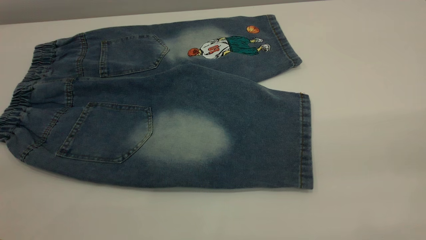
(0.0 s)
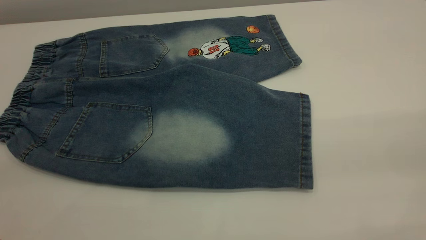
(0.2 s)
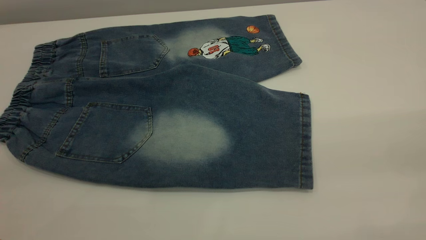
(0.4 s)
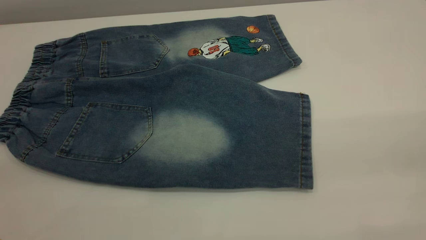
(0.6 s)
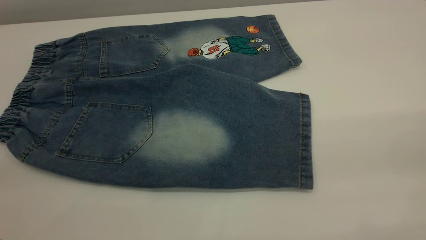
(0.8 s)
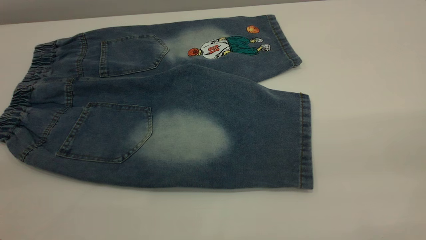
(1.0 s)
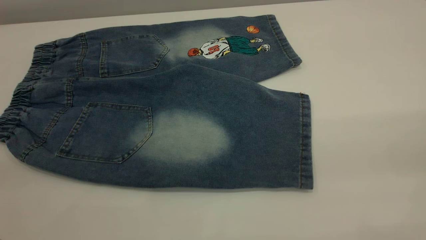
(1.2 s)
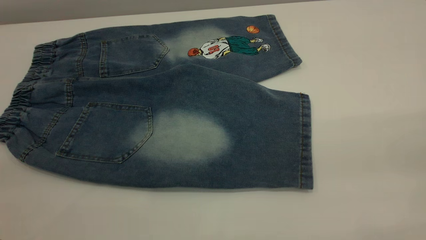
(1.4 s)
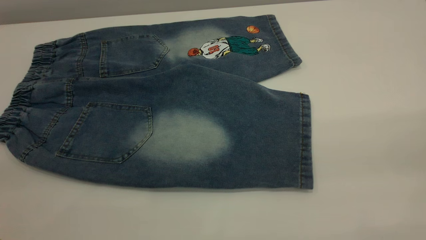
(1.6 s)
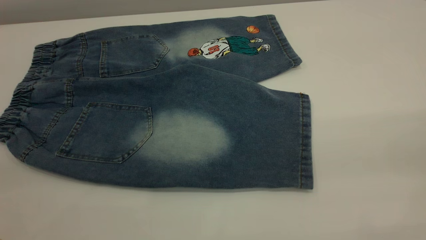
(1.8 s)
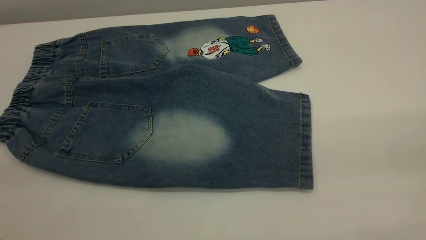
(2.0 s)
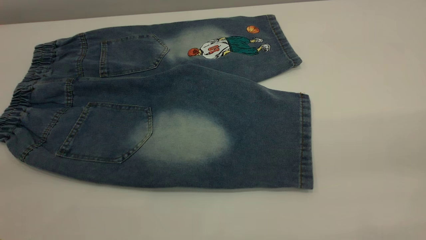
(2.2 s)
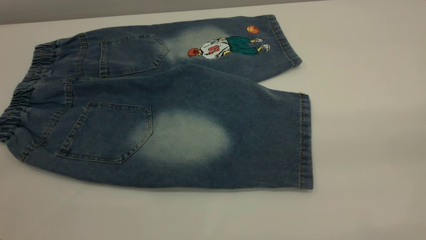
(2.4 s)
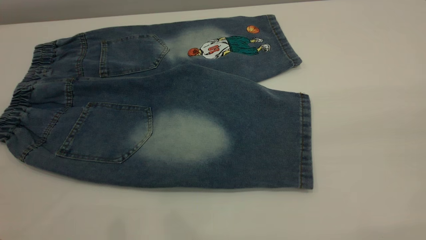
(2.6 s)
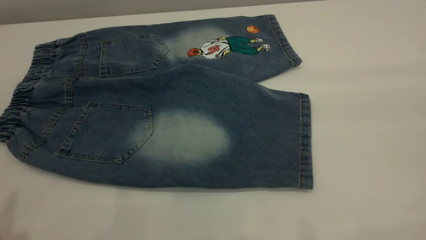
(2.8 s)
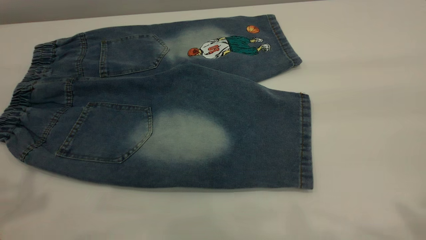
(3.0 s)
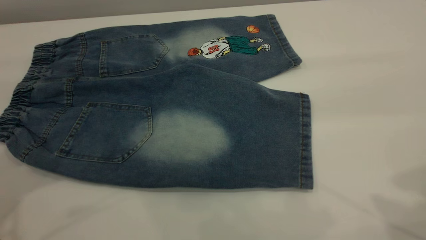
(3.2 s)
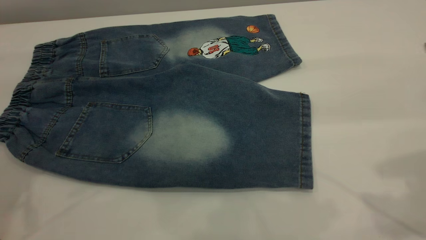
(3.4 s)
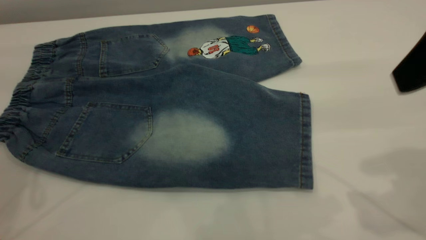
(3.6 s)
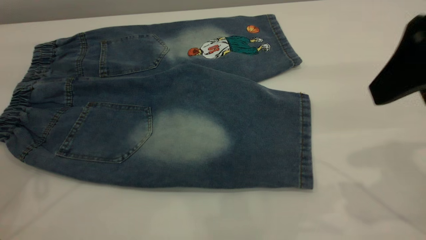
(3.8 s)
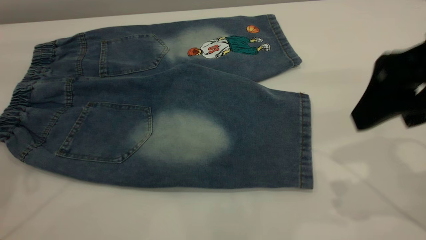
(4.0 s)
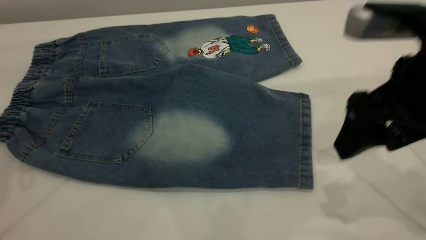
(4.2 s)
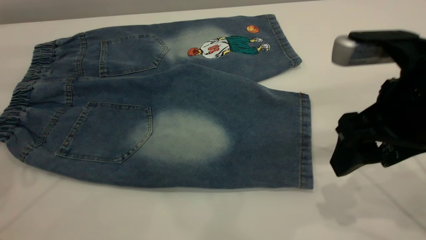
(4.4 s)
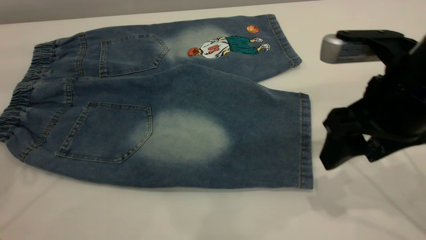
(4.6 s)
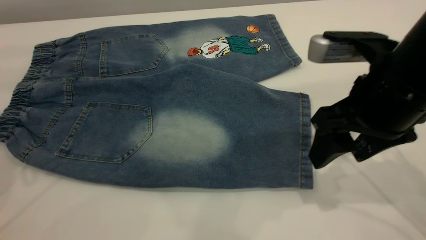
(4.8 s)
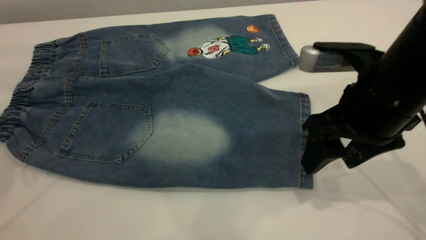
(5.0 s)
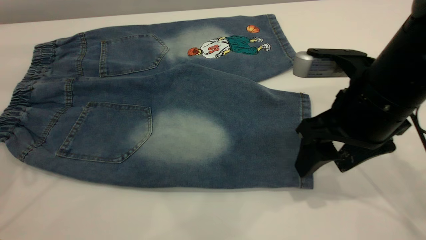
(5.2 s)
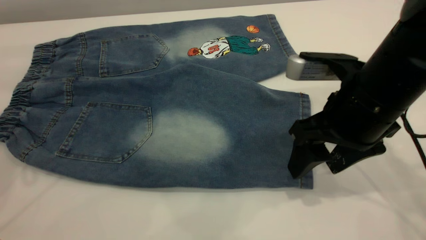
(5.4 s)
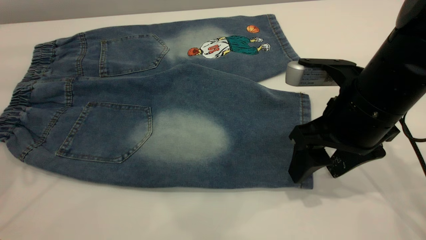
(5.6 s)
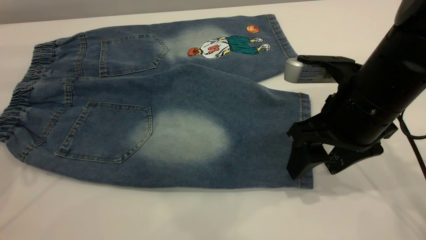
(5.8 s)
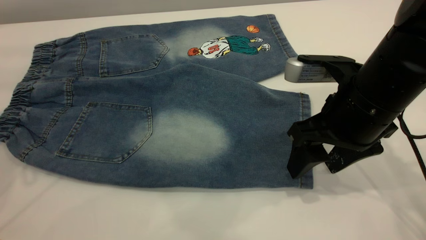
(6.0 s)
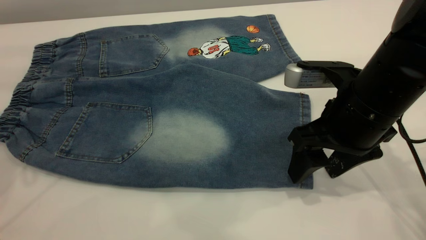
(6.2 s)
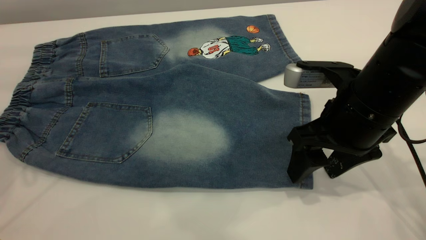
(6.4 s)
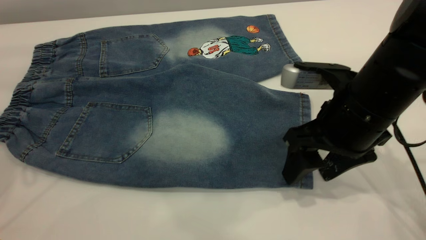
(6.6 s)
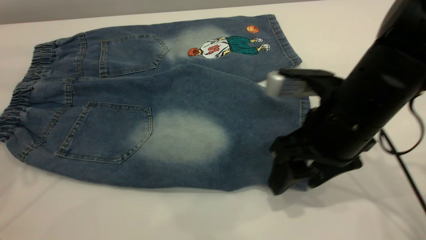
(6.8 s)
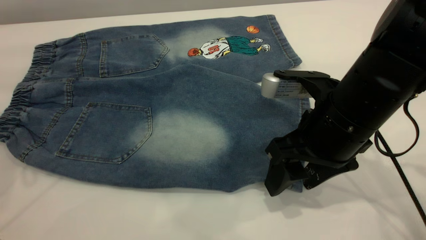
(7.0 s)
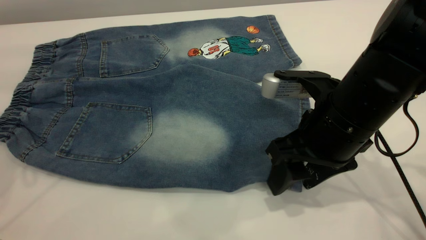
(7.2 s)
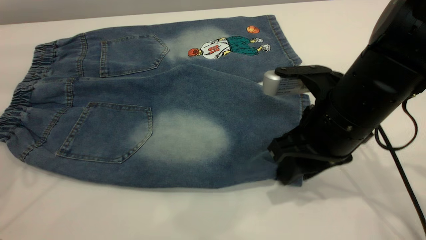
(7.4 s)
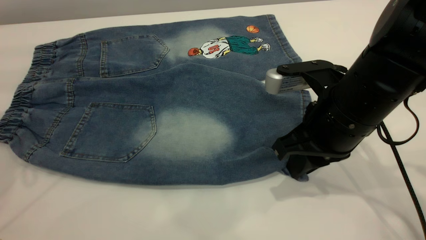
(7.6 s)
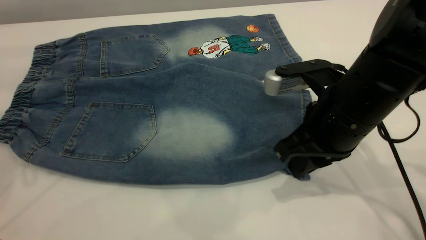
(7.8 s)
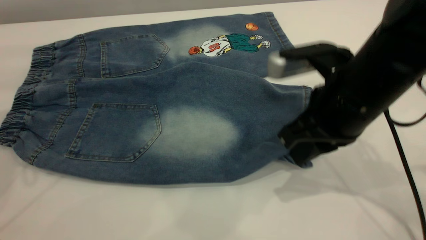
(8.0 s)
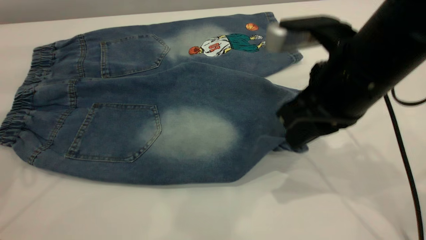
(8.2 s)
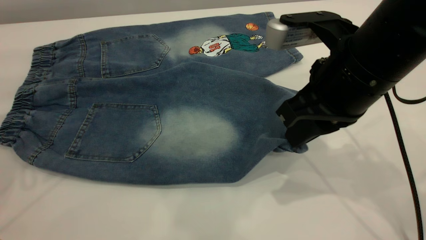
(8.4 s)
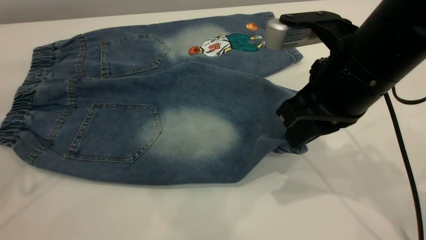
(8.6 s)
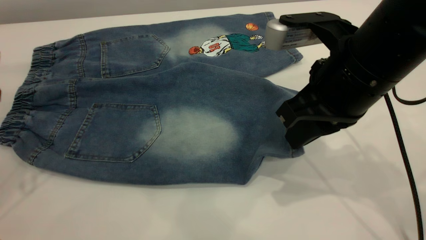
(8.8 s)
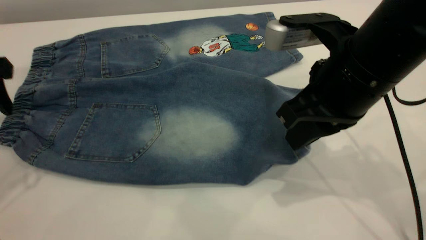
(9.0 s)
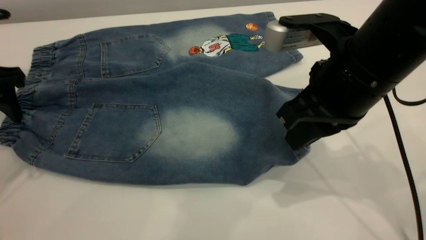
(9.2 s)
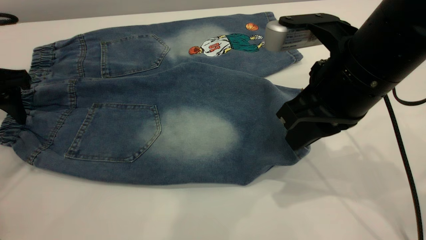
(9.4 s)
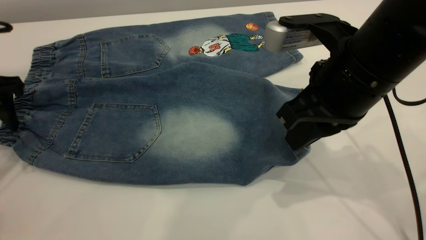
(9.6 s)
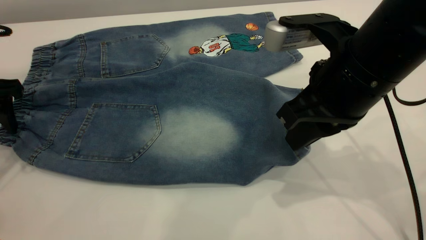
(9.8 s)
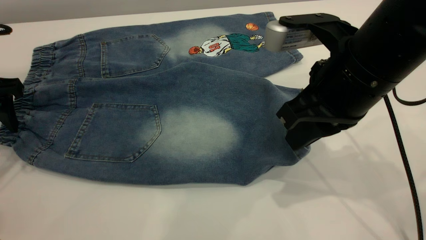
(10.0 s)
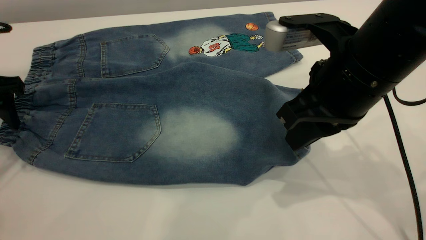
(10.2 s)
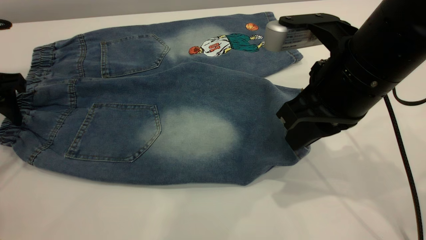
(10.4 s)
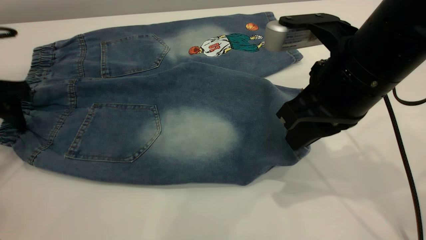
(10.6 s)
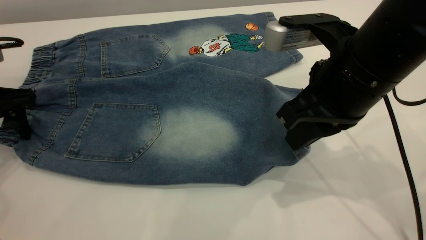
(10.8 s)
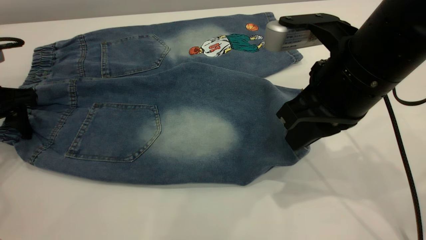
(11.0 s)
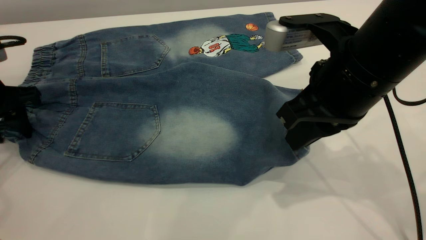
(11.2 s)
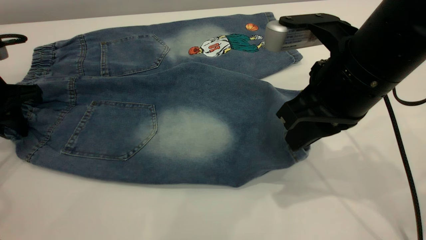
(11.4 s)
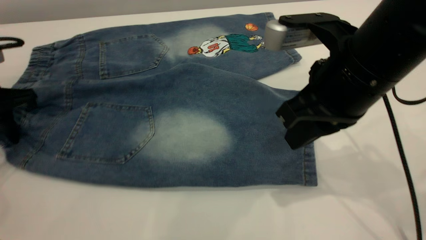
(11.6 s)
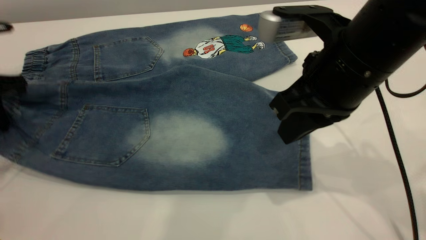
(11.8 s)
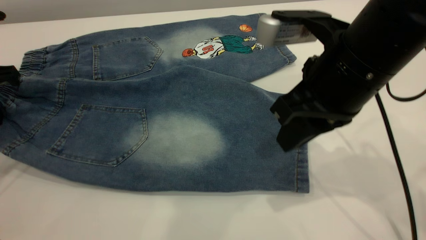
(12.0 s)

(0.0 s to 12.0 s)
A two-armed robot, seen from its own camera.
0.0 s - 1.6 s: The two grippers keep their place.
3.0 s - 4.4 s: The left gripper is displaced forward and downward by approximately 15 cm. The right gripper shifts some 20 cm downward, forward and to the left.
4.4 s - 6.0 s: The right gripper changes place by approximately 5 cm.
6.0 s - 7.6 s: The right gripper closes its fingers.
7.6 s - 9.0 s: The right gripper is displaced upward by approximately 5 cm, while the left gripper is displaced downward by roughly 10 cm.
9.0 s - 10.4 s: The grippers stay close to where they were, moving slightly.
10.4 s - 12.0 s: The left gripper closes.

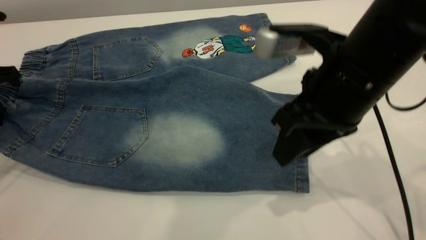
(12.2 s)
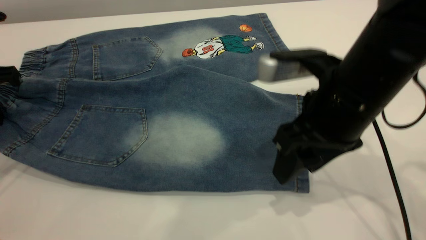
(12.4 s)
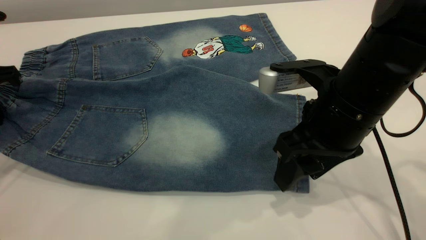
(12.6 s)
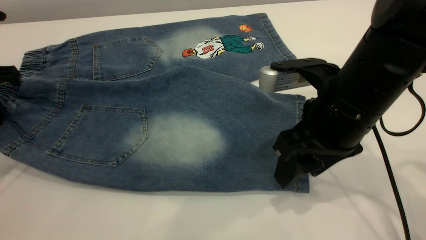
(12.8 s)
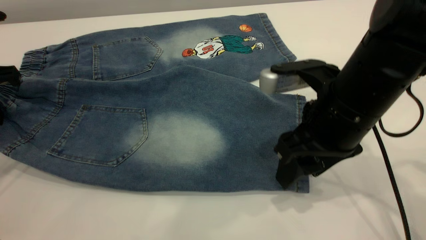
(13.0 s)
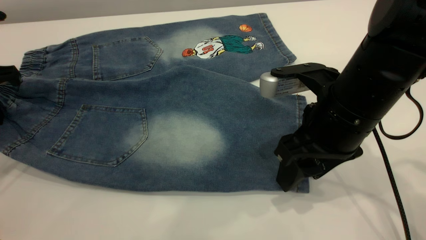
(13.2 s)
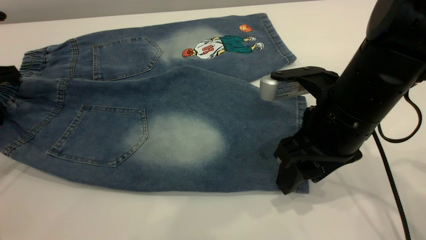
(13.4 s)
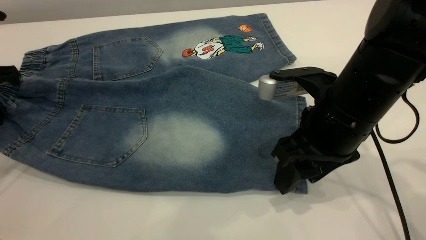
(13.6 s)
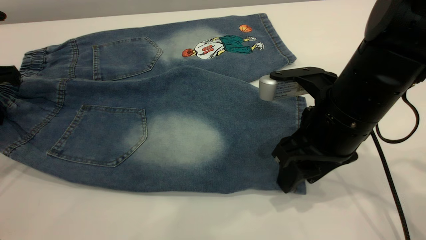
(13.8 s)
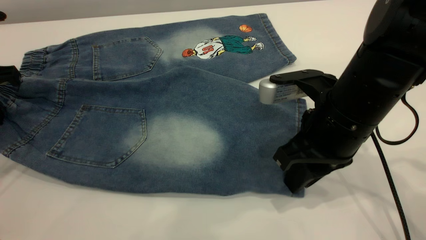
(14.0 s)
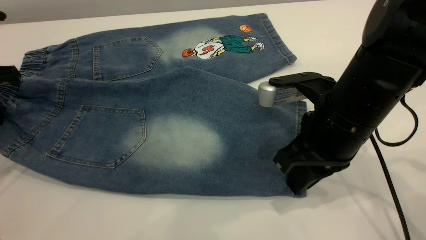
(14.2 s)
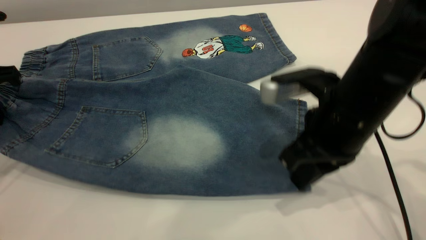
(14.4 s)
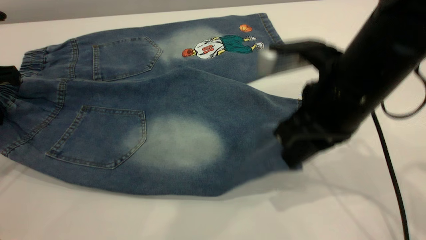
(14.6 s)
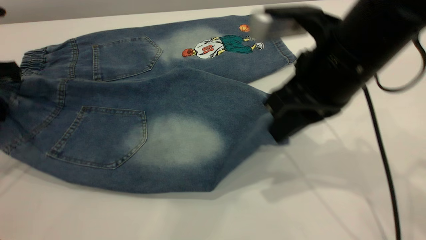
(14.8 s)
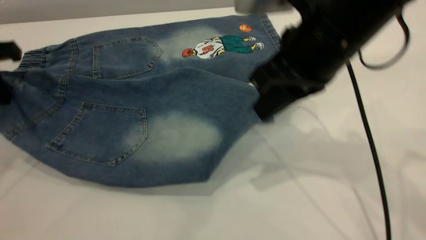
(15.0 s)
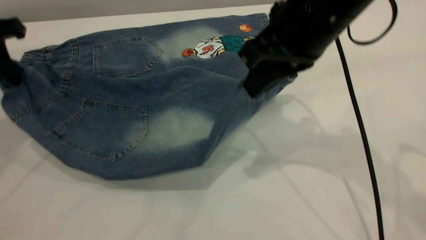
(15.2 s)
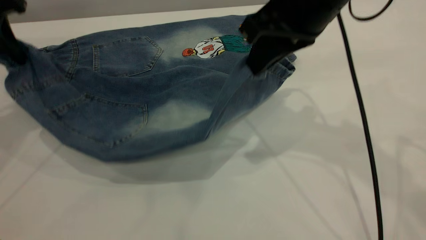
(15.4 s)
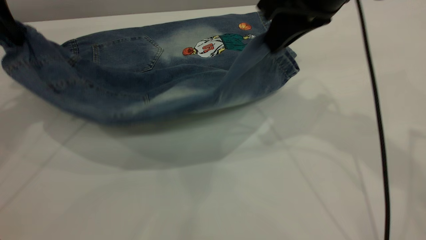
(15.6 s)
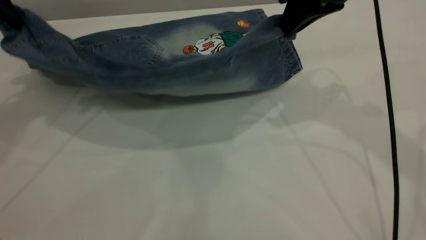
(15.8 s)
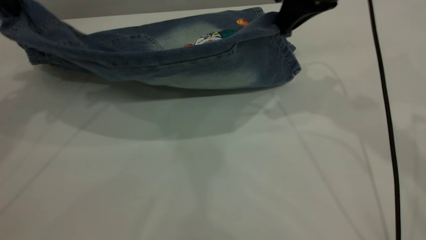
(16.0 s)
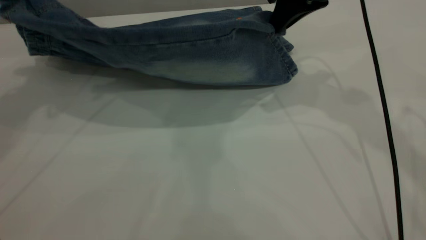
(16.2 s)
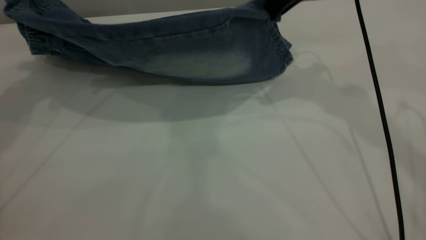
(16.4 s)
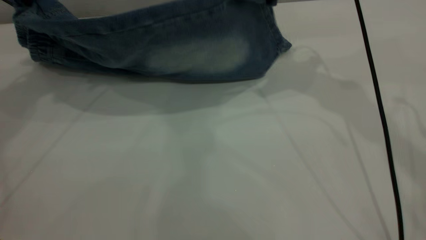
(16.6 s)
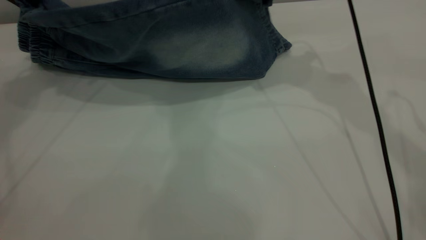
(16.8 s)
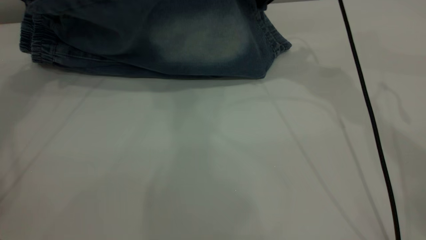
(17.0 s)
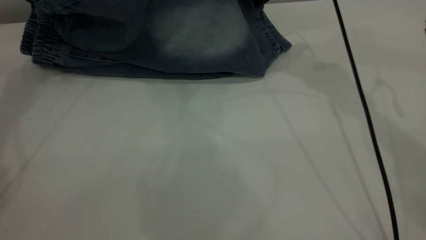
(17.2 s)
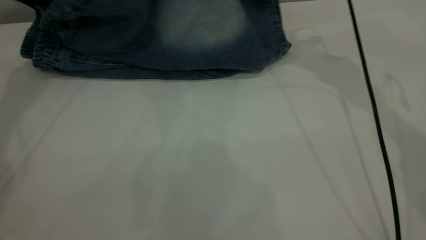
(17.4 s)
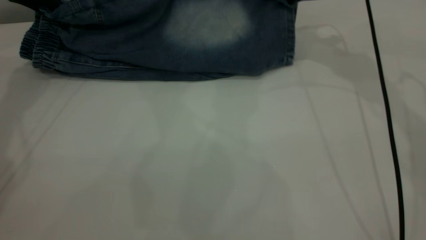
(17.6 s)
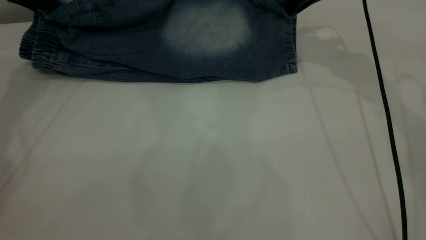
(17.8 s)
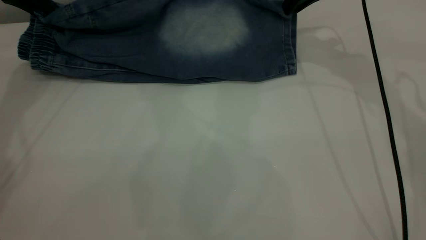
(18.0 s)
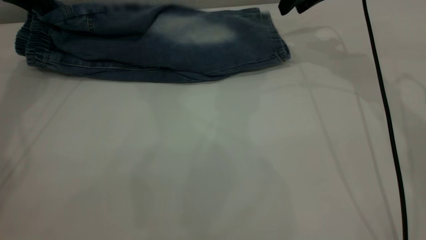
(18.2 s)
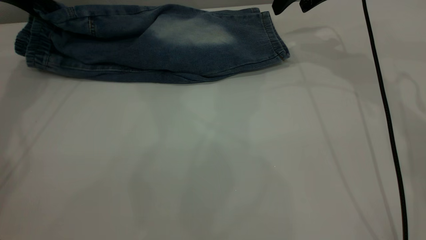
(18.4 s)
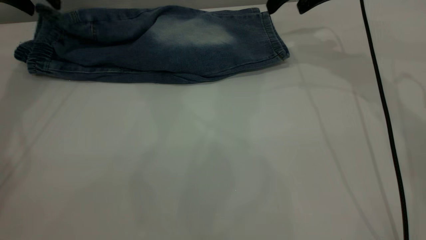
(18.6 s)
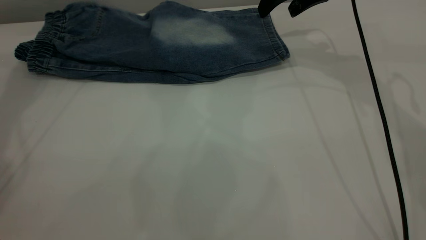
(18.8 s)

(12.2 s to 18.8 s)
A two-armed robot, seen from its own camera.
12.2 s - 13.8 s: The right gripper heads downward, covering about 5 cm.
13.8 s - 15.4 s: The left gripper goes roughly 5 cm upward. Meanwhile the right gripper goes roughly 15 cm upward and forward, and closes up.
15.4 s - 17.2 s: Both grippers move forward, roughly 15 cm.
17.2 s - 18.8 s: The right gripper opens up; the left gripper opens up.
